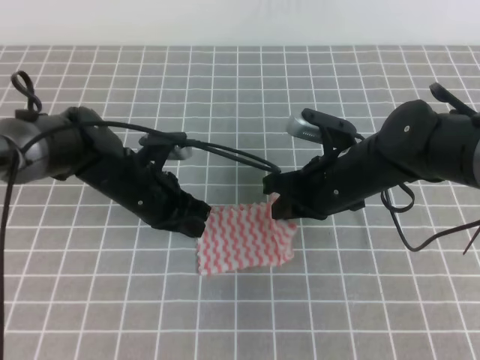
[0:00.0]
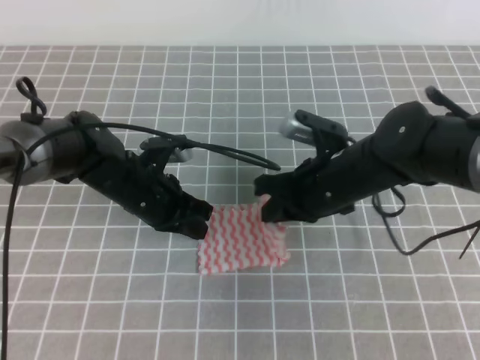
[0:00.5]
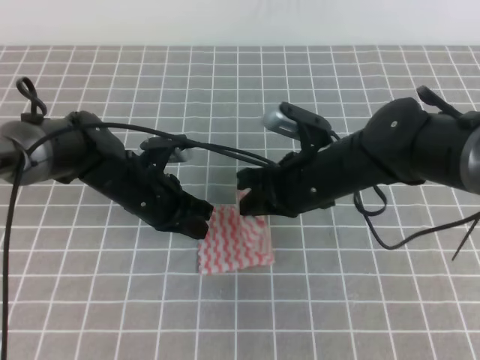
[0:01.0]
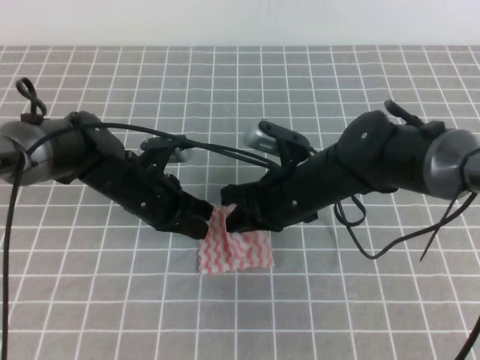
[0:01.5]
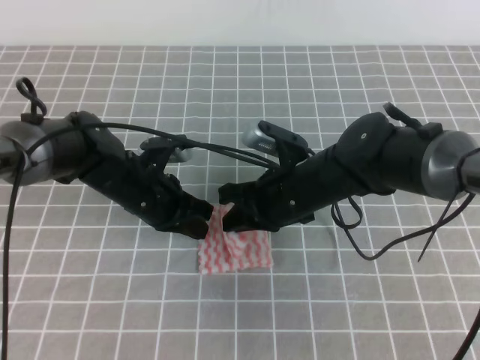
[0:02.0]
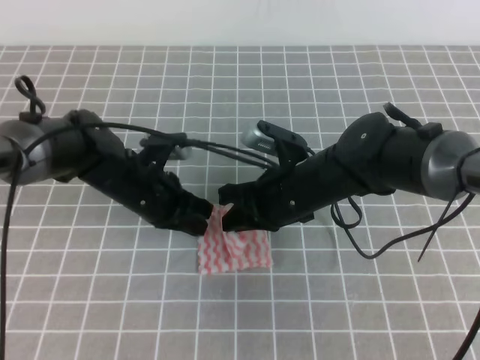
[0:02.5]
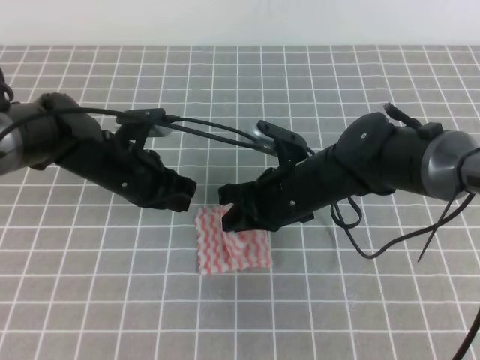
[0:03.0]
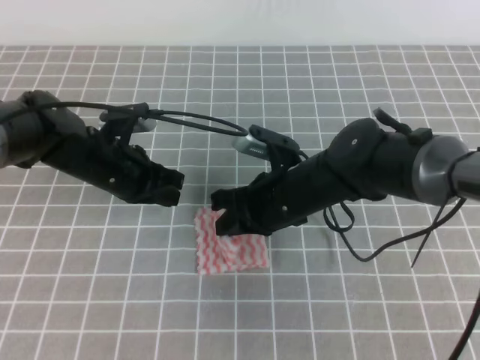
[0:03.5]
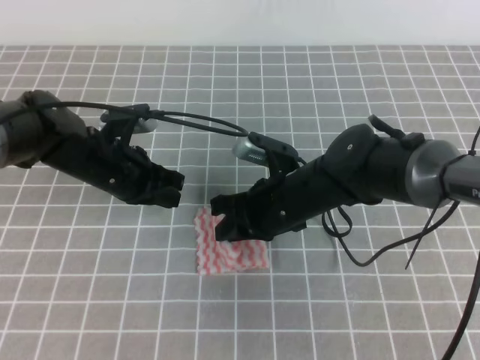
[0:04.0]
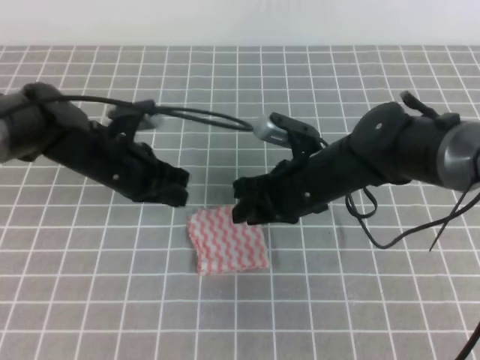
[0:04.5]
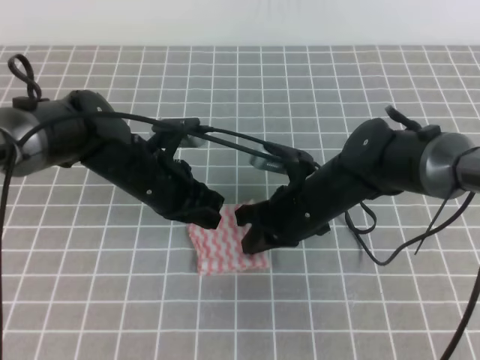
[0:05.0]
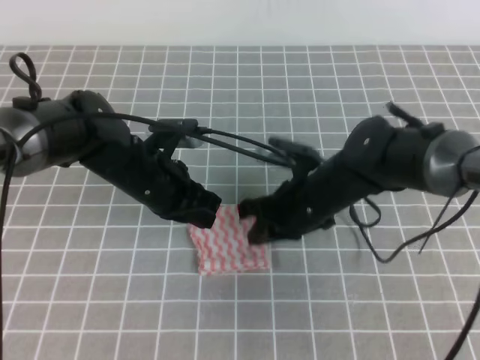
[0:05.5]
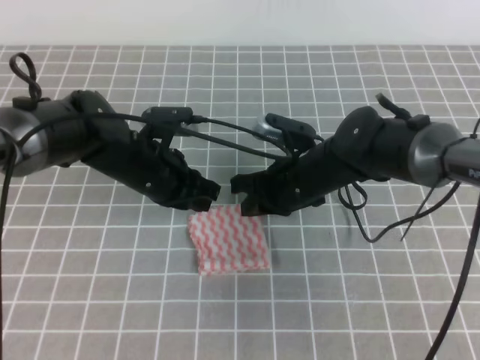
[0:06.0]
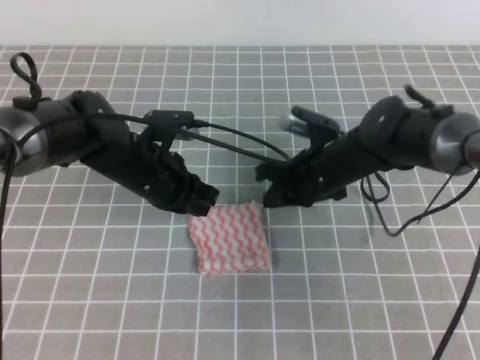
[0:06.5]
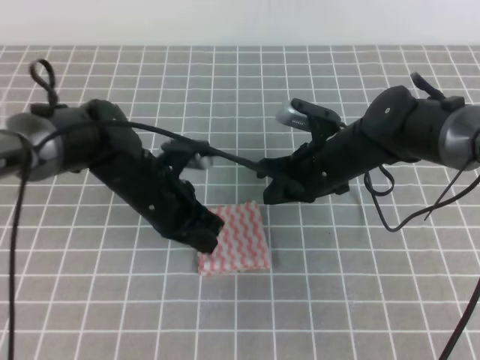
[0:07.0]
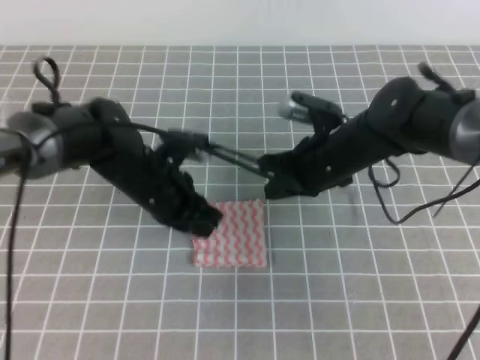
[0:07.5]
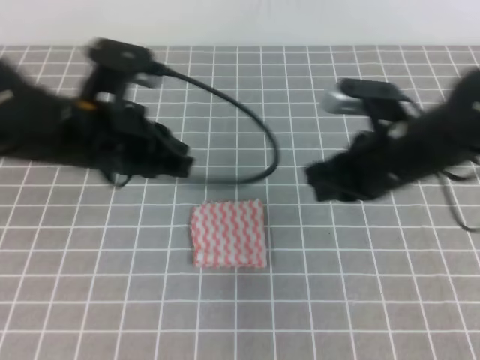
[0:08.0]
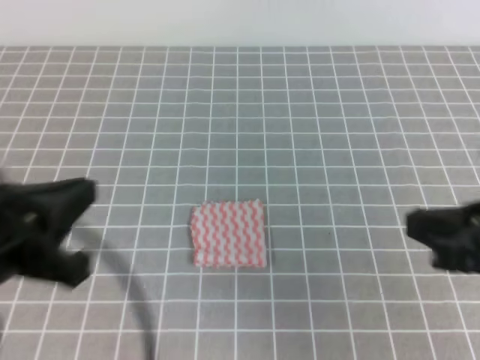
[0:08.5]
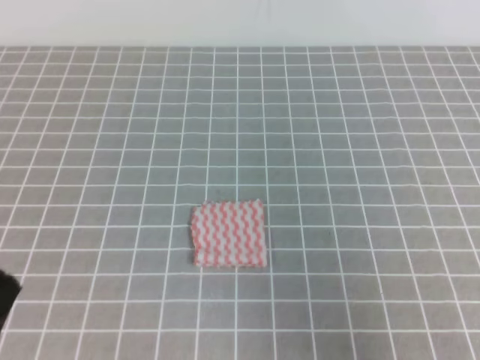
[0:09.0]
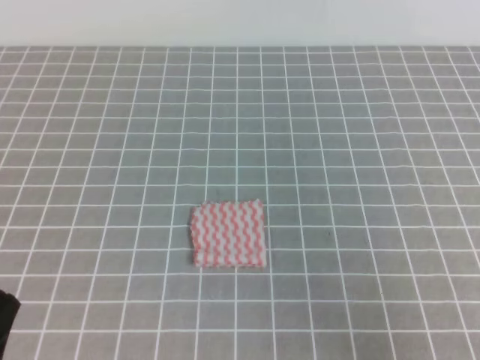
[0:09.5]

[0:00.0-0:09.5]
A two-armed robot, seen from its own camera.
0:00.0 to 0:02.0: The right gripper ends up about 5 cm from where it was.
0:02.0 to 0:04.0: The left gripper moves about 5 cm; the right gripper opens.
0:04.0 to 0:05.5: The right gripper closes up; the left gripper changes place by approximately 5 cm.
0:05.5 to 0:07.5: The right gripper moves about 5 cm.
0:07.5 to 0:09.5: The left gripper heads backward and to the left, covering approximately 35 cm; the right gripper heads backward and to the right, covering roughly 35 cm.

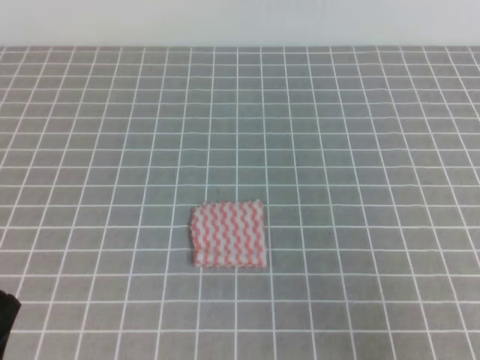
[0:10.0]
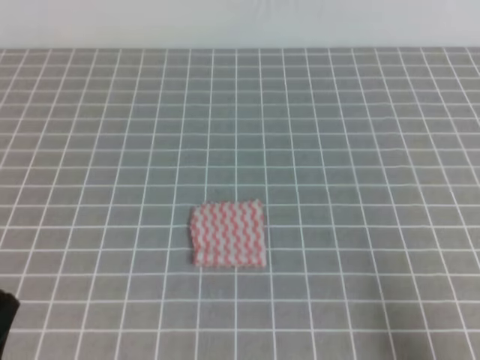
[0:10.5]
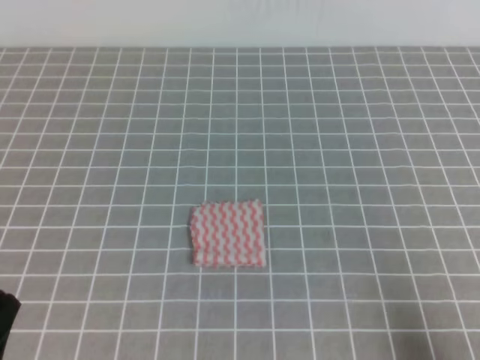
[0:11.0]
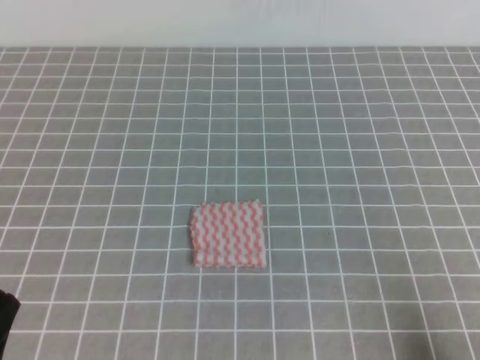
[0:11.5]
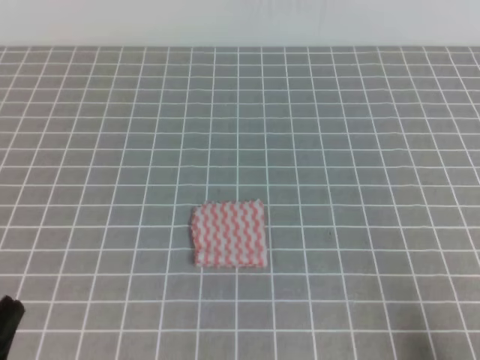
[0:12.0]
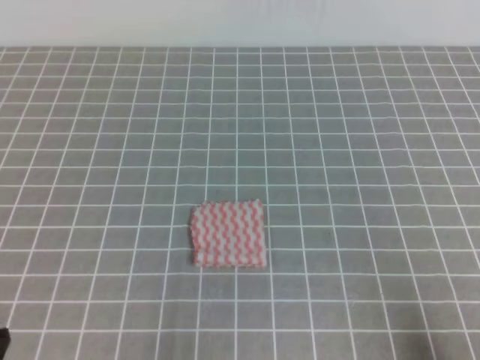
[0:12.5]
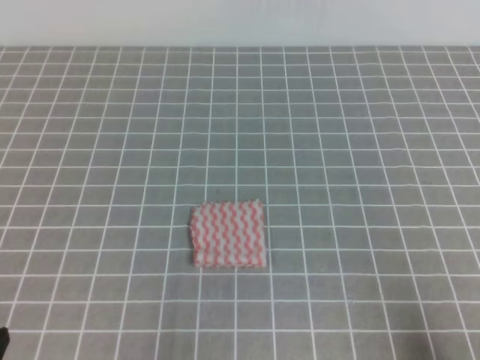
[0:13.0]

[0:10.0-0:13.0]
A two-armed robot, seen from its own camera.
Step, 0:10.0 to 0:13.0: Fold the towel.
0:10.0 to 0:11.5: The right gripper moves downward, some 5 cm.
